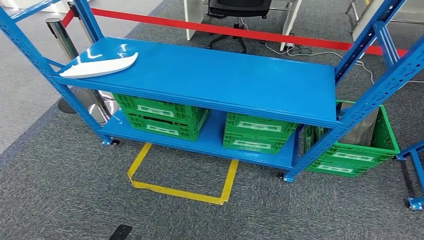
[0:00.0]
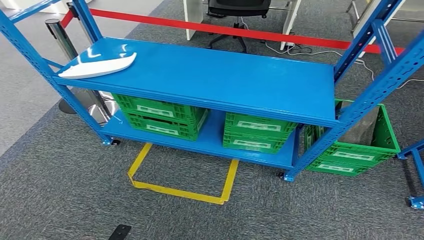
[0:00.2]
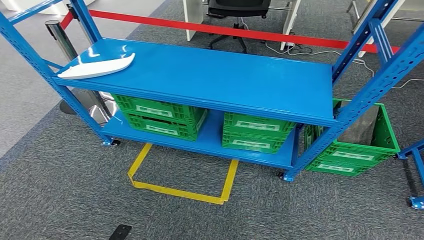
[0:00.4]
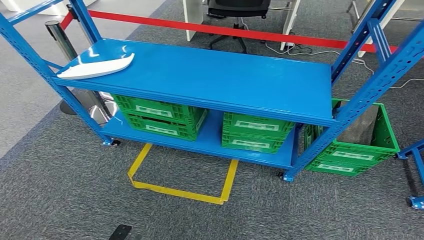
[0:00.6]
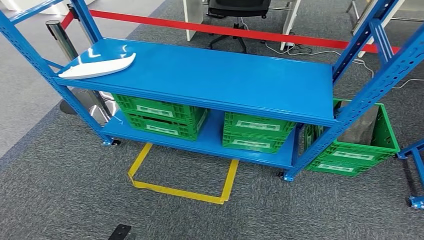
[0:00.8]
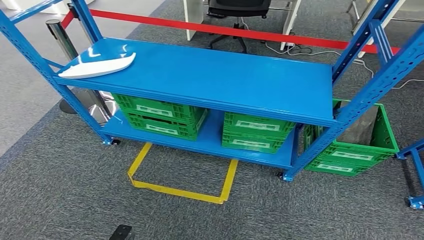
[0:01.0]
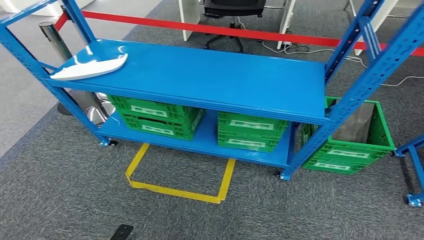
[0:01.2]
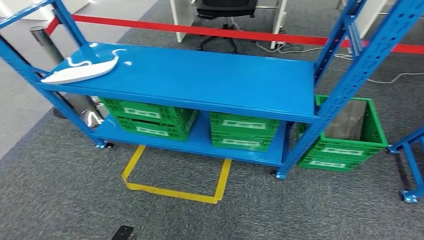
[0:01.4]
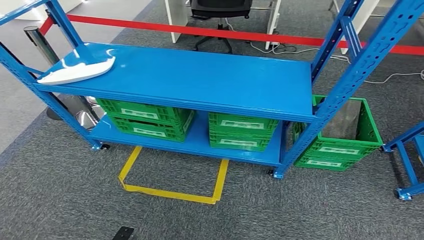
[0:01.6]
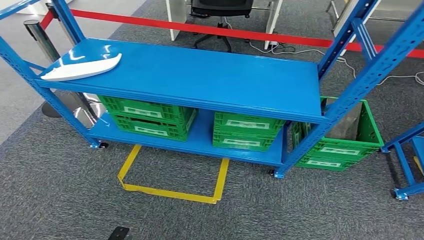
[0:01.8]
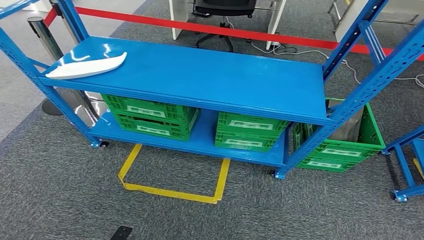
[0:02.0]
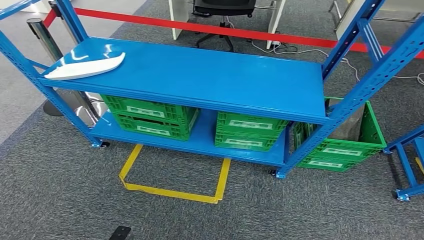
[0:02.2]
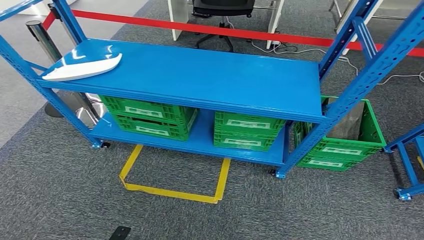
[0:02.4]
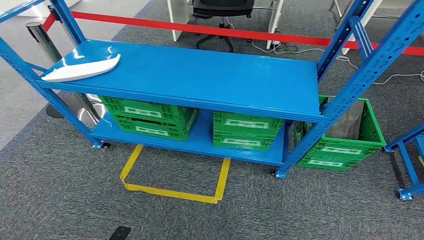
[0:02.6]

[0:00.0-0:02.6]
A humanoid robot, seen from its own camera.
Step, 0:00.0 to 0:02.6: Return to the initial position at the workbench.
0:00.0 to 0:01.2: Both hands stay put.
